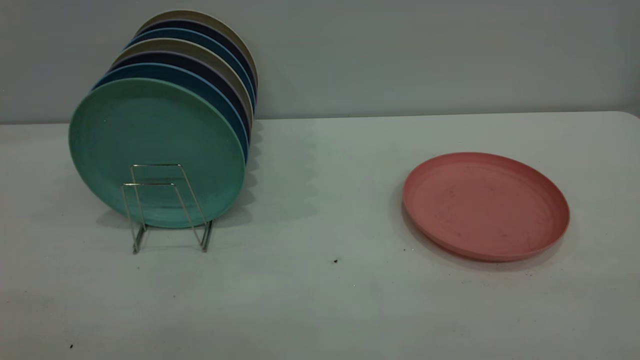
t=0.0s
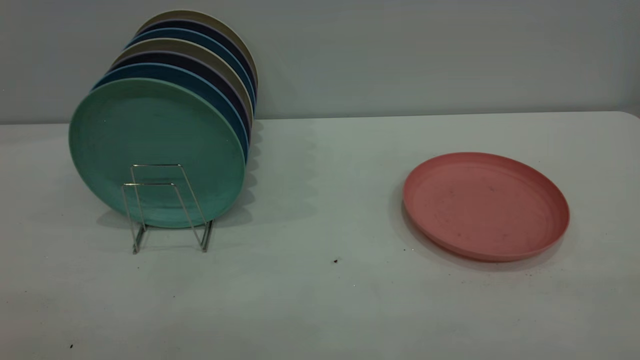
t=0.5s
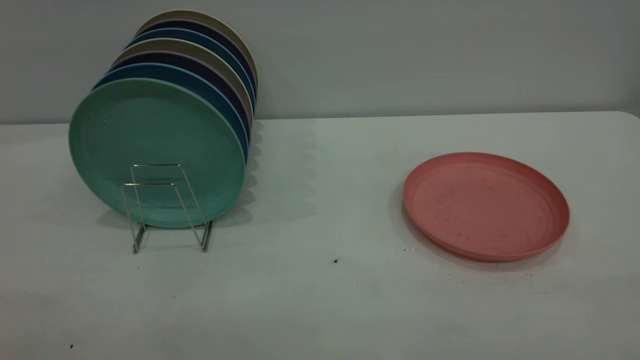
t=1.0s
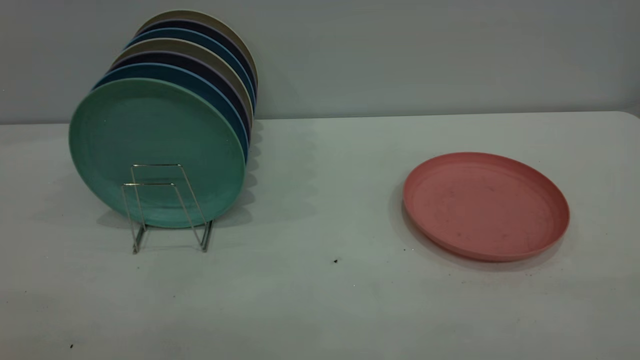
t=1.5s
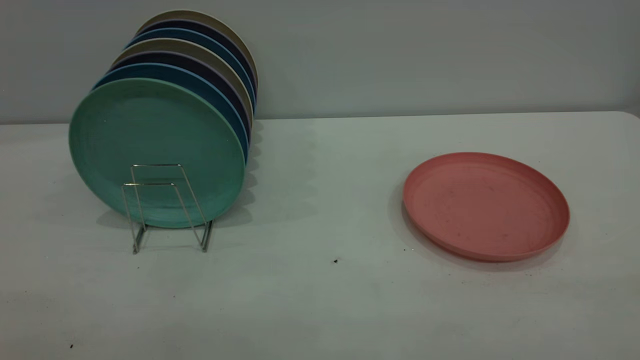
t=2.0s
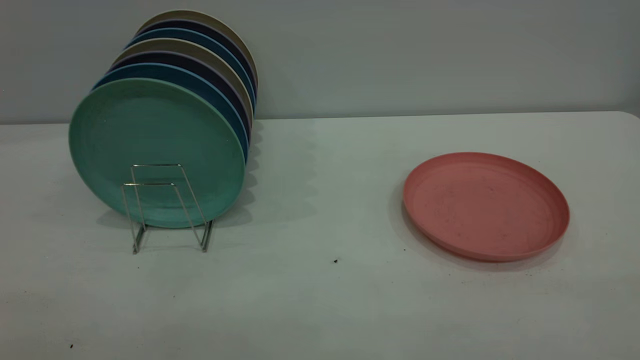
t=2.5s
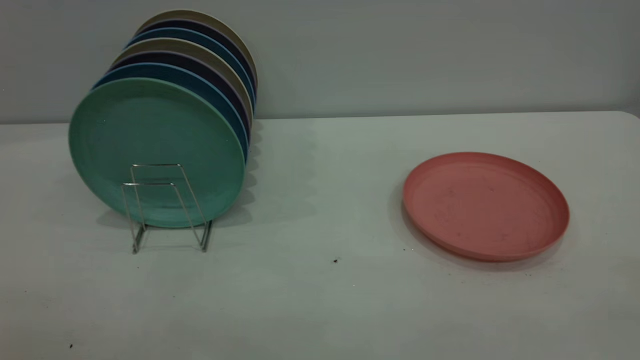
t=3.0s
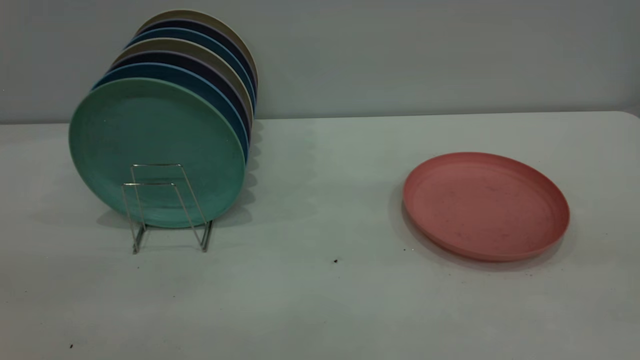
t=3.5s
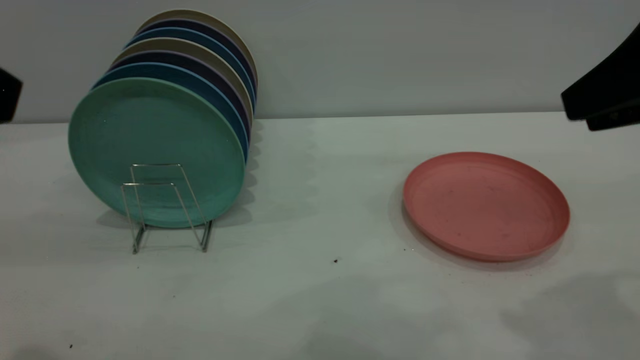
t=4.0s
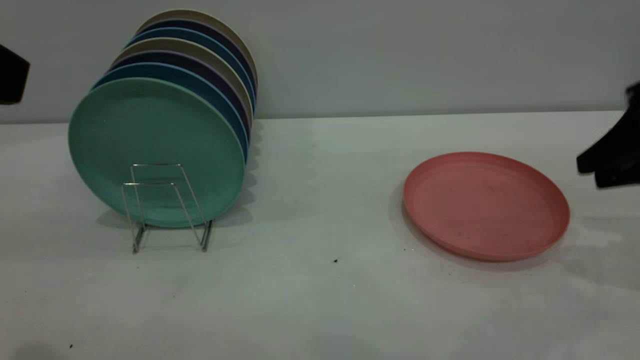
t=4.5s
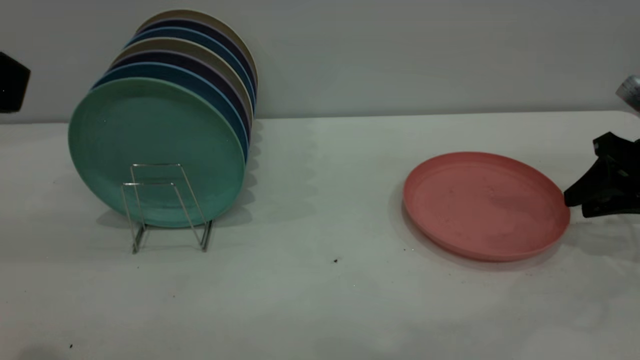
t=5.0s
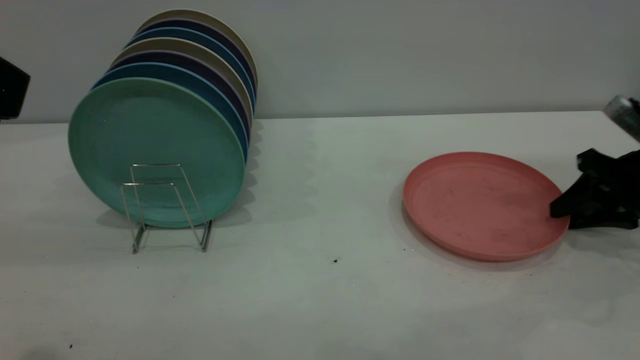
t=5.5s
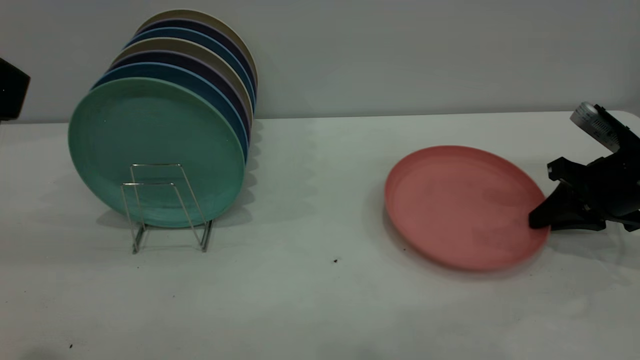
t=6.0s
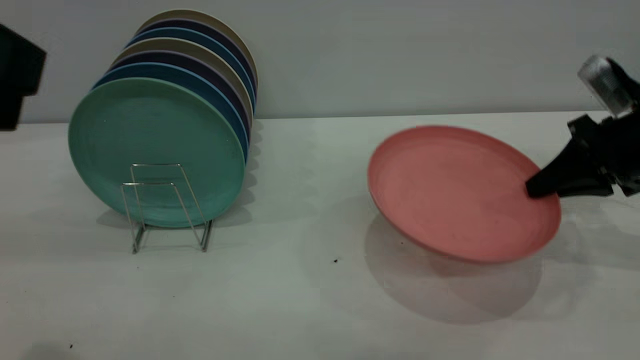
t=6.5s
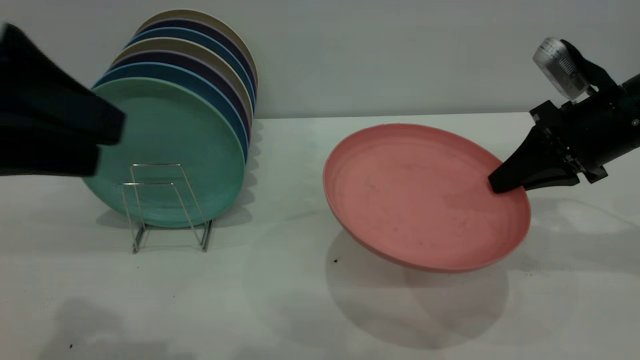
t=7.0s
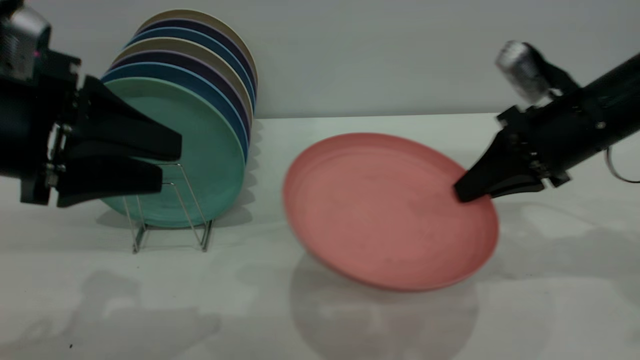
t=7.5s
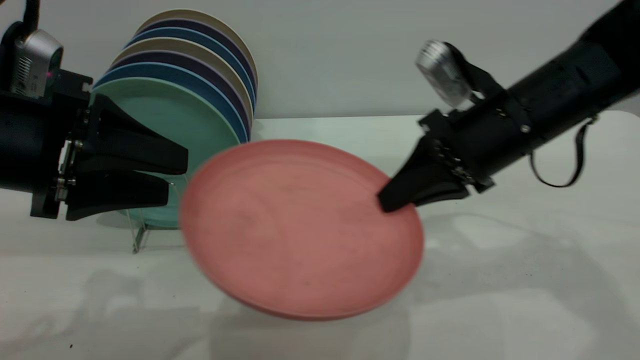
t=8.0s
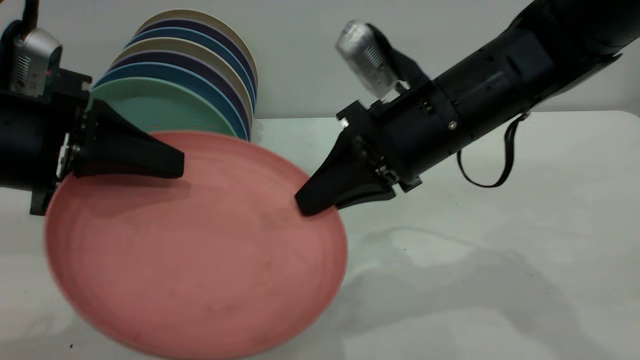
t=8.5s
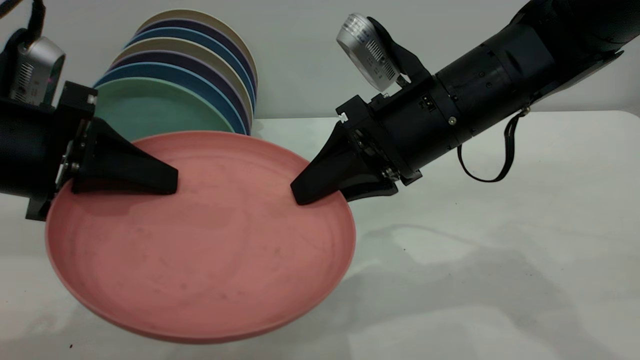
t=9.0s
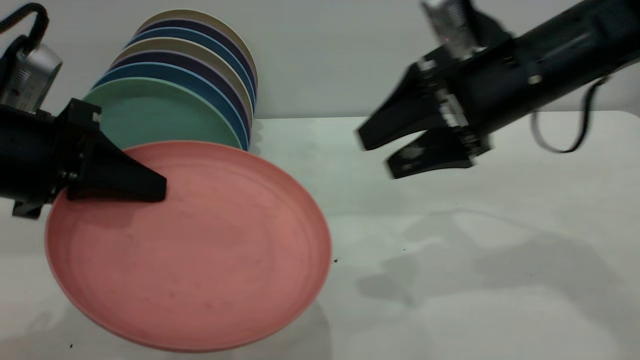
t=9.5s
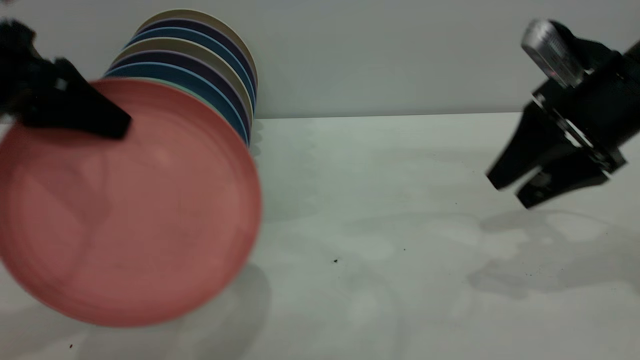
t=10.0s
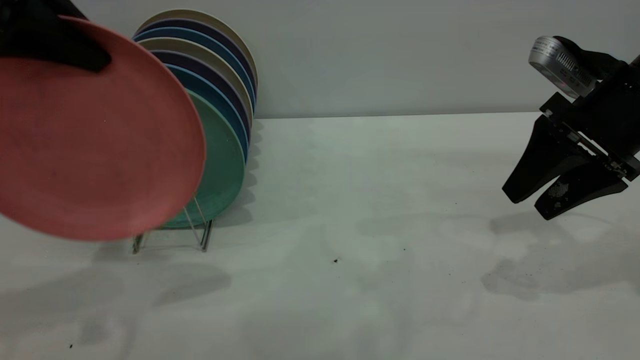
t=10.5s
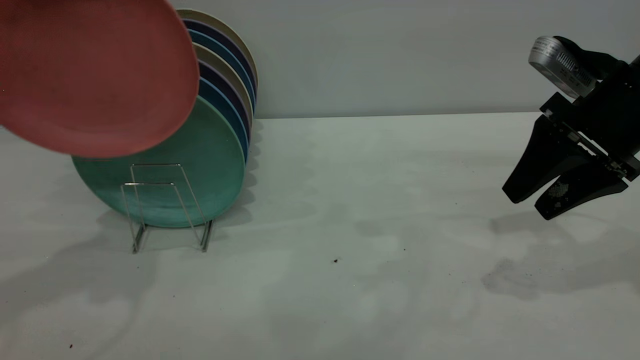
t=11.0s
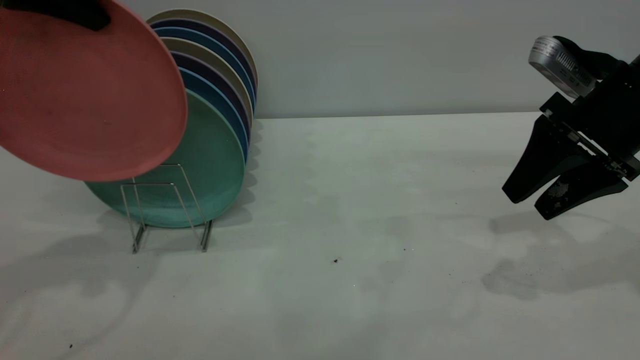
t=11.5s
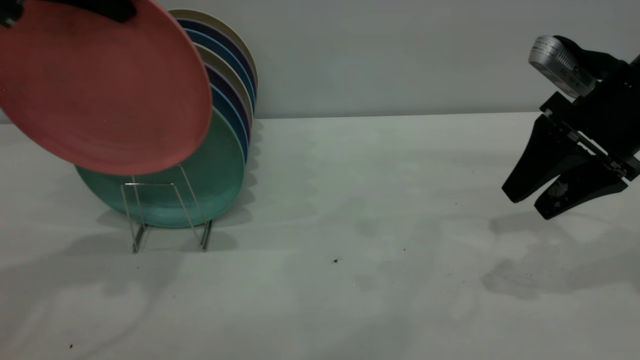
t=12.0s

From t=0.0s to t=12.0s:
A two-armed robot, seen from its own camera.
Task of the whole recording: the right gripper grasp the pink plate, the right gripper pass the pink plate to the left gripper, and the left gripper place the pink plate on the plate rack.
Step, from t=0.0s to t=6.5s: Pick up the plate with the right gripper.
Step, from t=7.0s to t=9.5s: Pass the plate from the right gripper to the left gripper.
From t=0.0s to t=2.0s: Both grippers stay about where they are.
From t=2.0s to t=4.0s: The right gripper shifts approximately 25 cm forward.
From t=4.0s to t=6.0s: The right gripper shifts some 25 cm downward and forward, and closes up.
From t=6.0s to t=8.0s: The left gripper shifts some 15 cm downward and forward; the right gripper travels to the left and upward by roughly 20 cm.
From t=8.0s to t=10.0s: The right gripper is displaced to the right by approximately 10 cm, and opens. Meanwhile the left gripper travels upward by roughly 5 cm, and closes its fingers.
From t=10.0s to t=12.0s: The left gripper goes roughly 10 cm upward and forward.

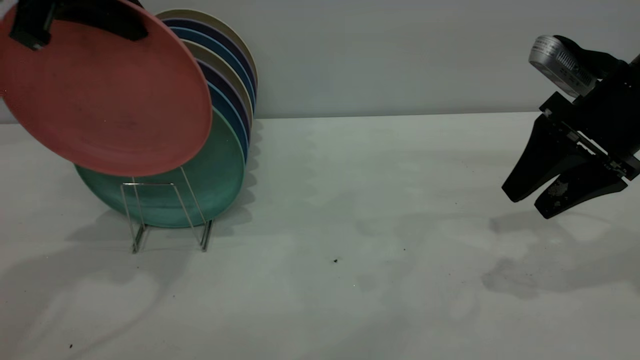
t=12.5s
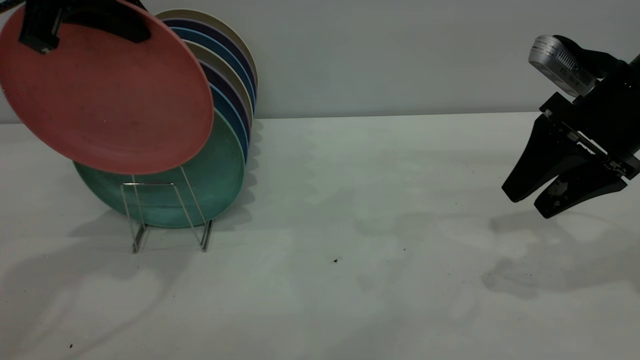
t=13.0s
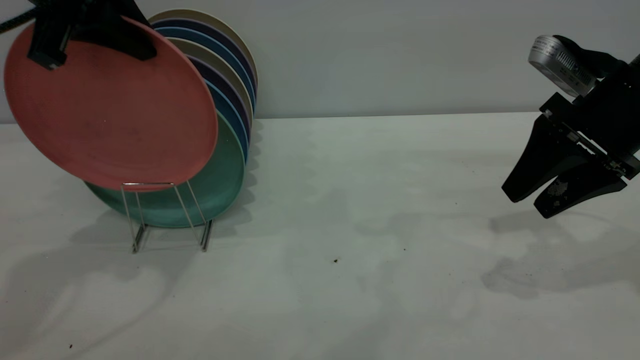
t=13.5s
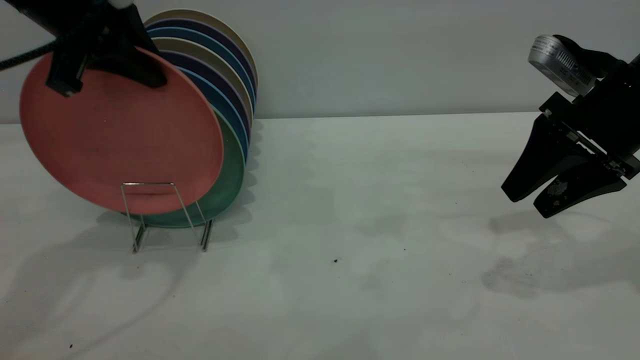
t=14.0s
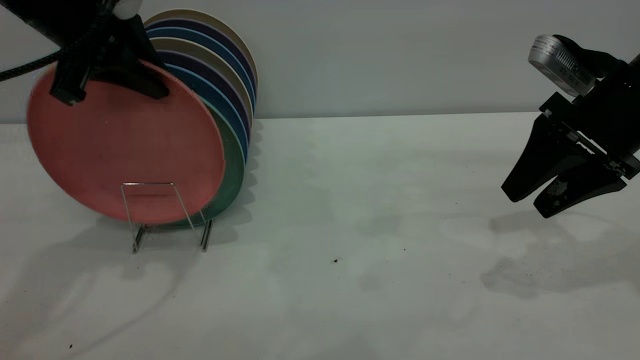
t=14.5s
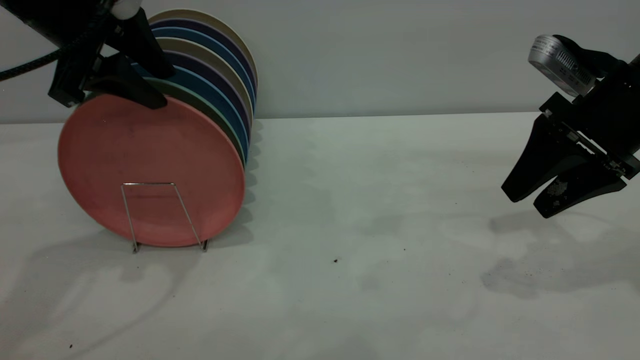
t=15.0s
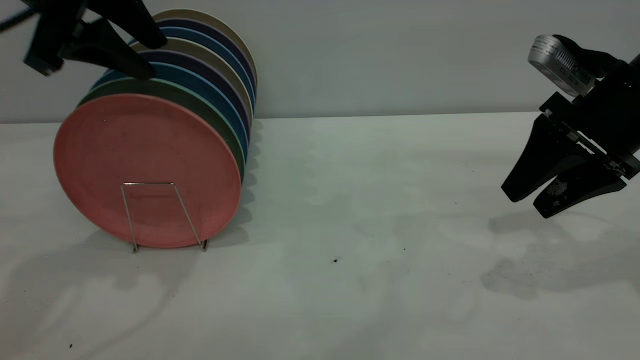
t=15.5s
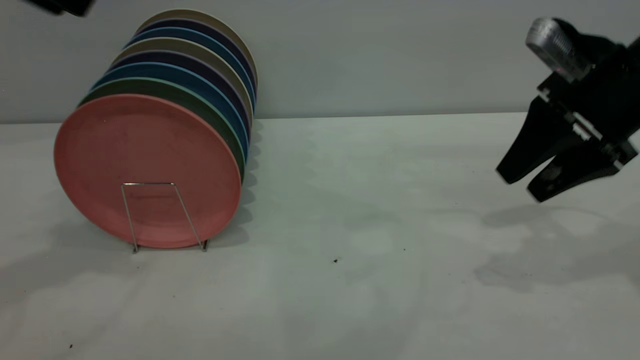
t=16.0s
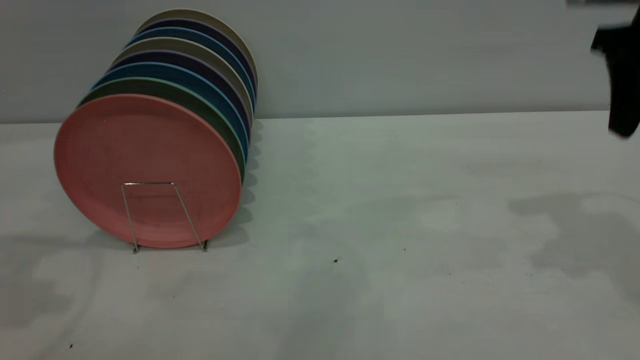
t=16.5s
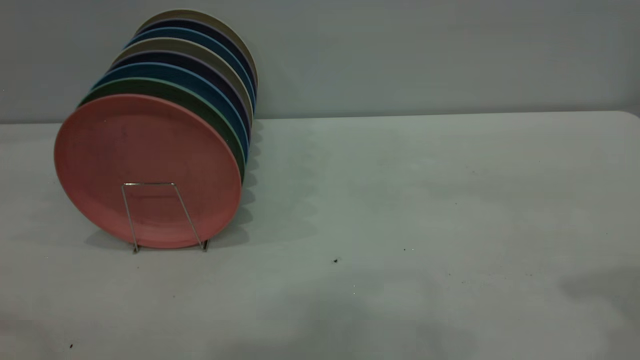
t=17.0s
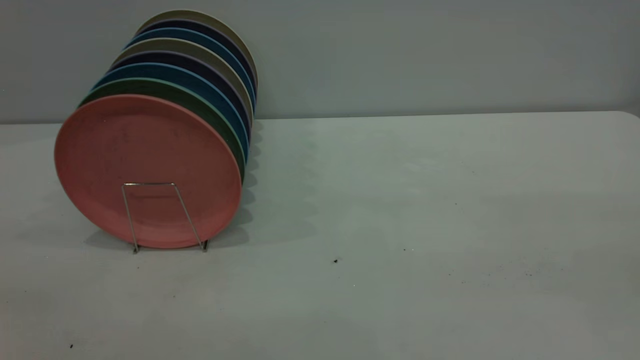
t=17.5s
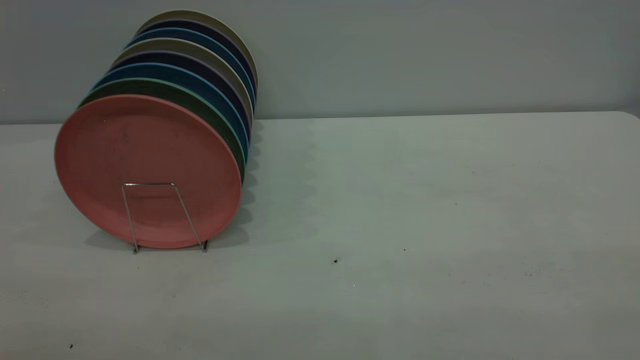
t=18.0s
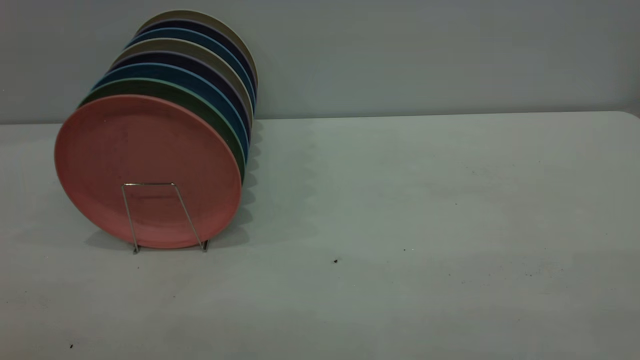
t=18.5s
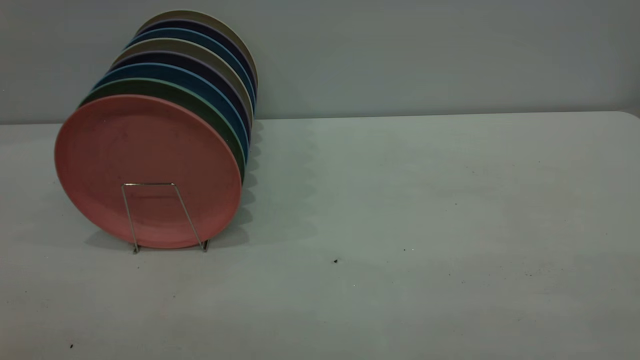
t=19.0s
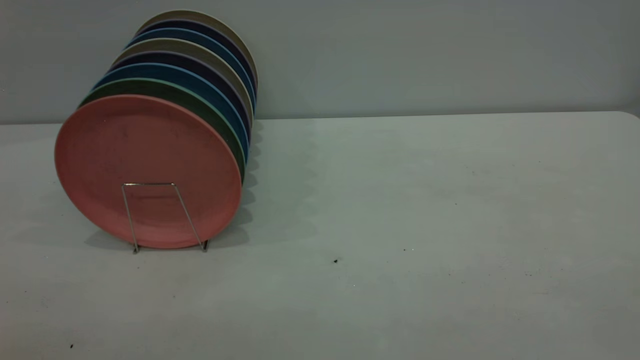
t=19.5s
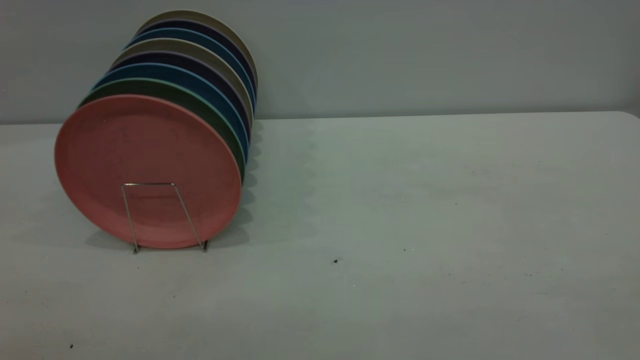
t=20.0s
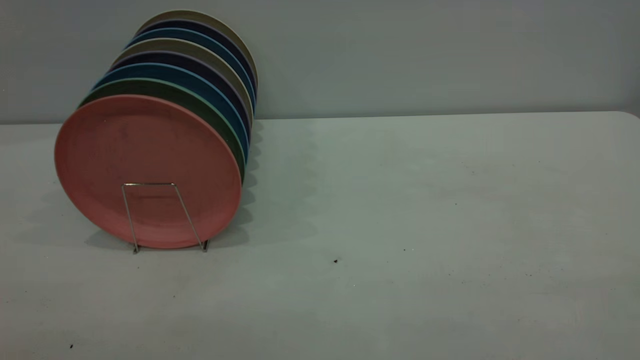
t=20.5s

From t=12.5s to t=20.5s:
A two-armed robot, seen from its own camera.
Task of the whole recording: the right gripper grasp the pink plate, the right gripper pass the pink plate to the left gripper, and the left gripper place the pink plate on the plate rack.
Step, from t=12.5s to t=16.0s: Place the plate on the shelf.
From t=12.5s to t=14.5s: The left gripper travels downward by roughly 5 cm.
From t=14.5s to t=16.5s: The left gripper is displaced backward, to the left and upward by roughly 15 cm, and opens its fingers. The right gripper shifts about 10 cm upward.
From t=16.5s to t=18.5s: The right gripper shifts roughly 35 cm backward.
